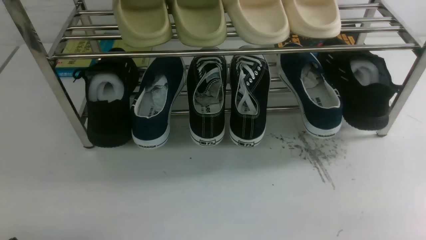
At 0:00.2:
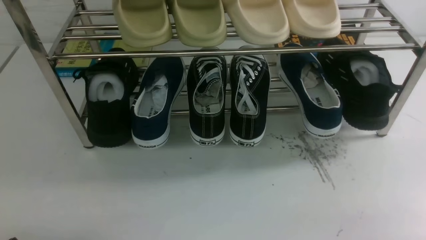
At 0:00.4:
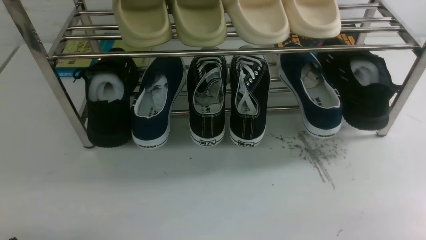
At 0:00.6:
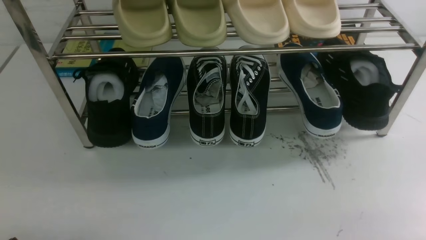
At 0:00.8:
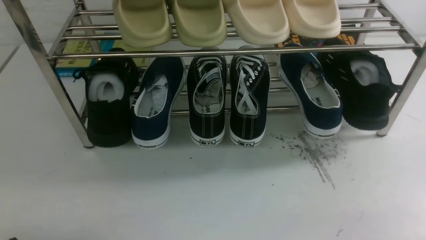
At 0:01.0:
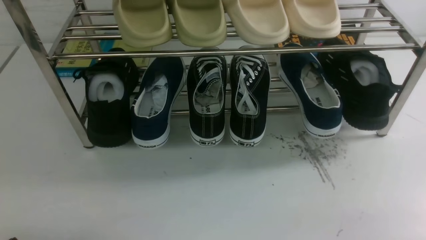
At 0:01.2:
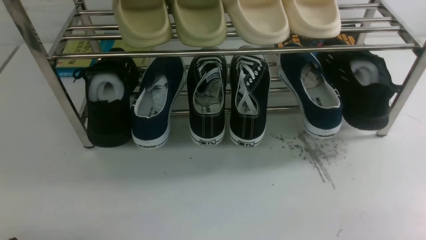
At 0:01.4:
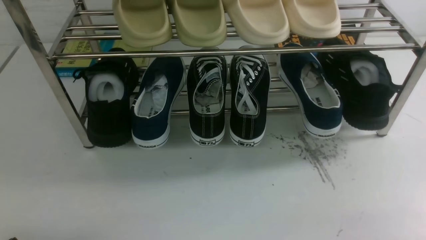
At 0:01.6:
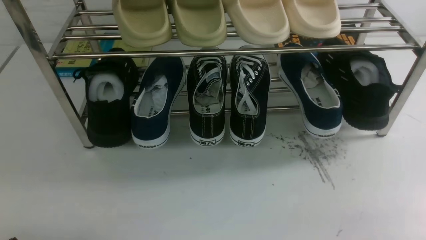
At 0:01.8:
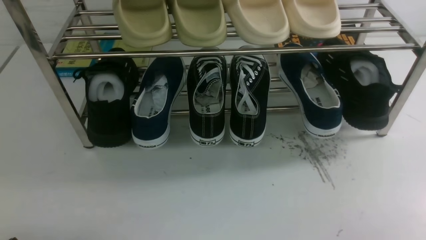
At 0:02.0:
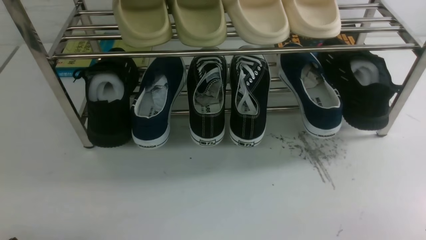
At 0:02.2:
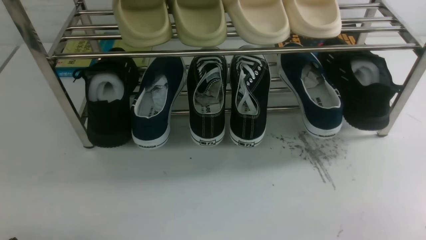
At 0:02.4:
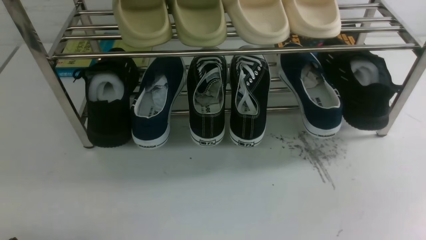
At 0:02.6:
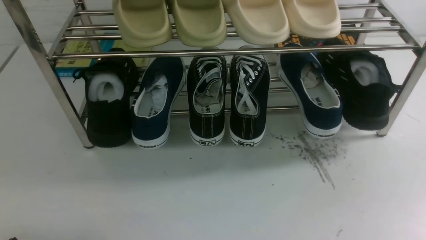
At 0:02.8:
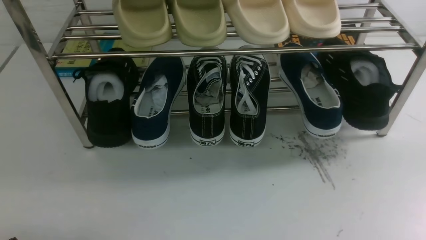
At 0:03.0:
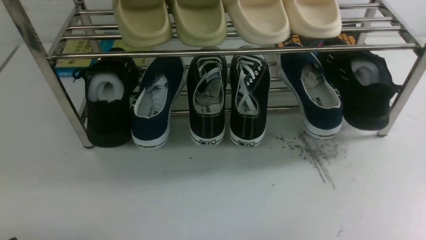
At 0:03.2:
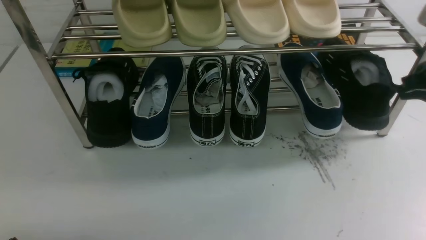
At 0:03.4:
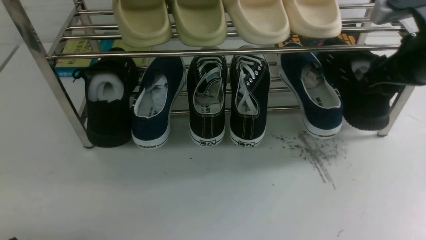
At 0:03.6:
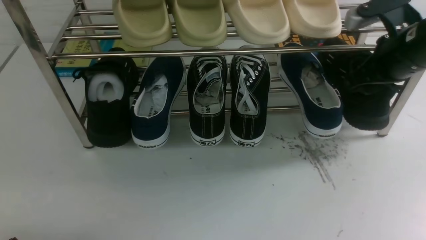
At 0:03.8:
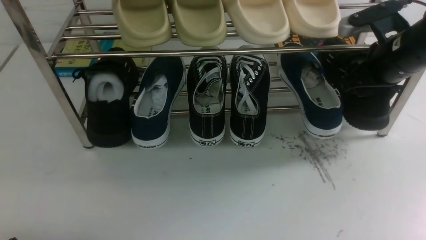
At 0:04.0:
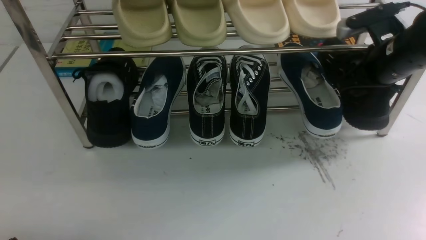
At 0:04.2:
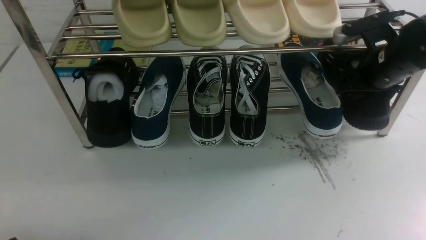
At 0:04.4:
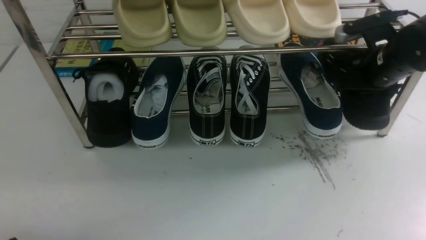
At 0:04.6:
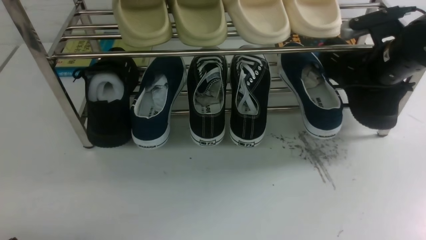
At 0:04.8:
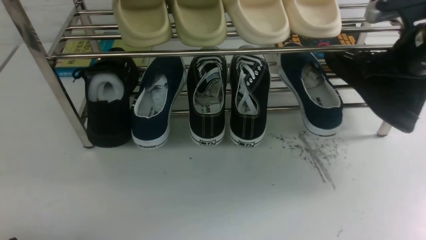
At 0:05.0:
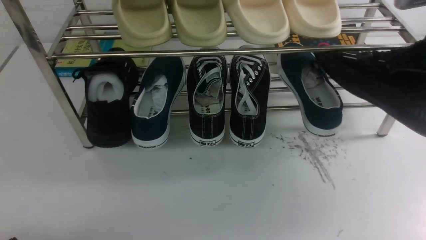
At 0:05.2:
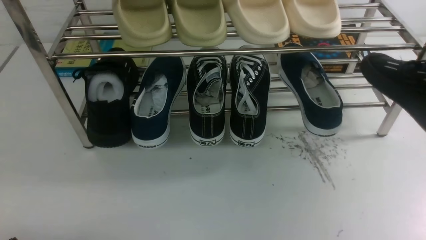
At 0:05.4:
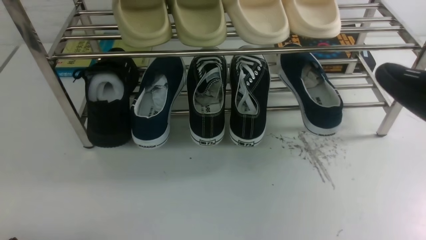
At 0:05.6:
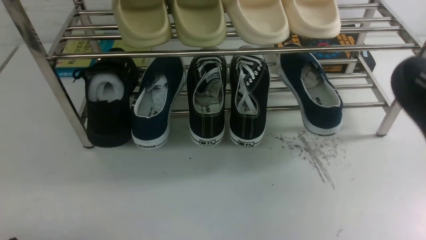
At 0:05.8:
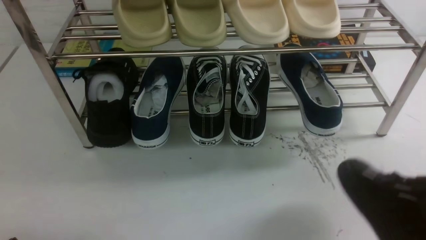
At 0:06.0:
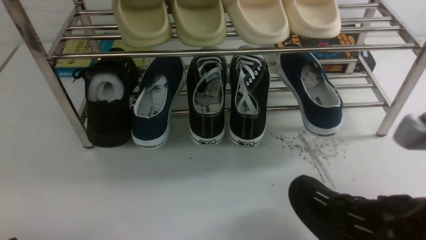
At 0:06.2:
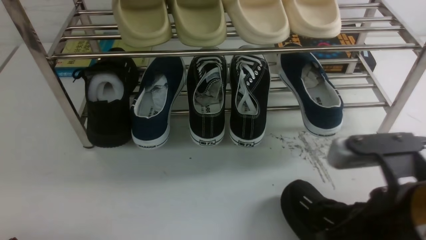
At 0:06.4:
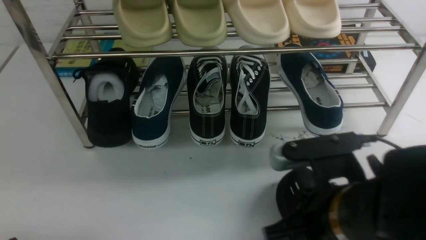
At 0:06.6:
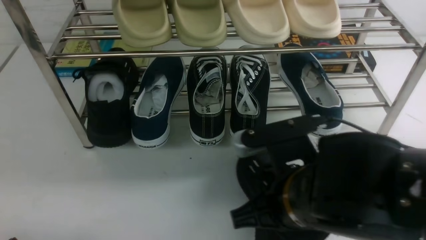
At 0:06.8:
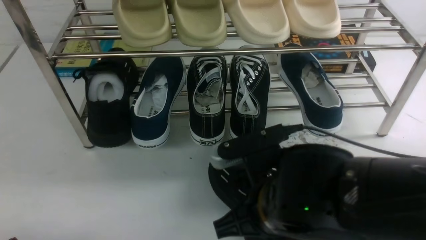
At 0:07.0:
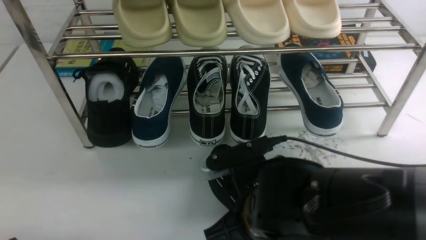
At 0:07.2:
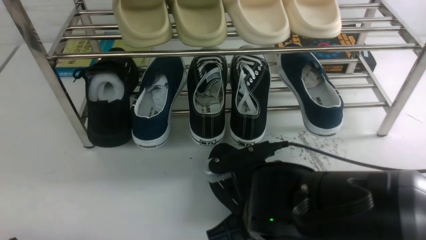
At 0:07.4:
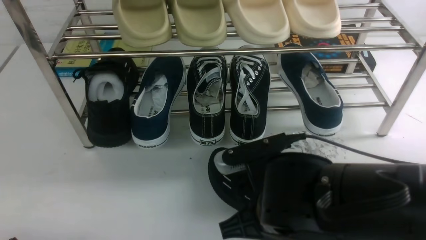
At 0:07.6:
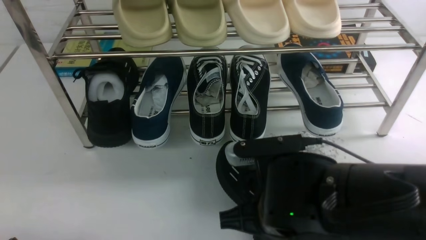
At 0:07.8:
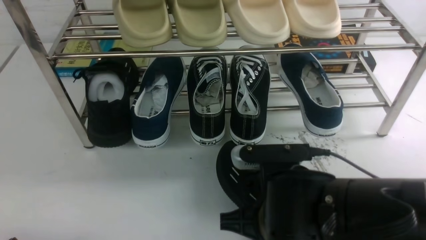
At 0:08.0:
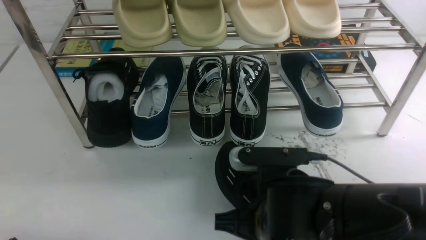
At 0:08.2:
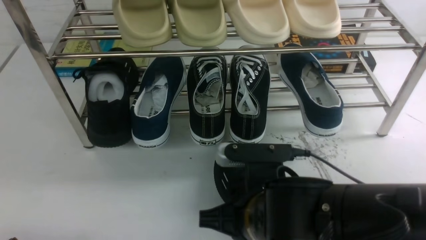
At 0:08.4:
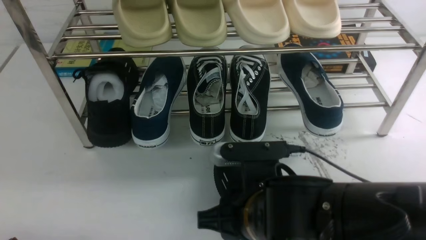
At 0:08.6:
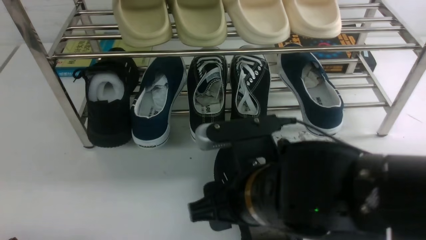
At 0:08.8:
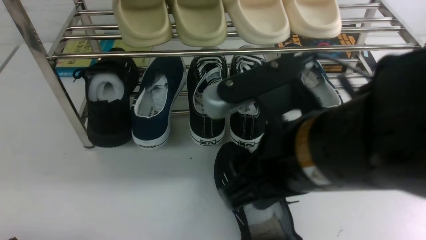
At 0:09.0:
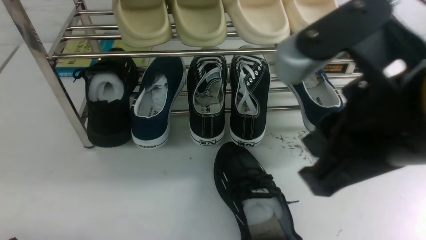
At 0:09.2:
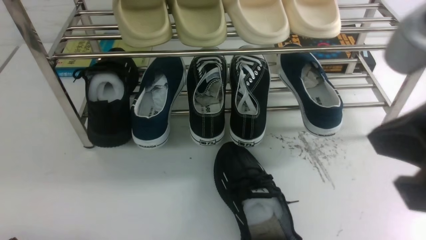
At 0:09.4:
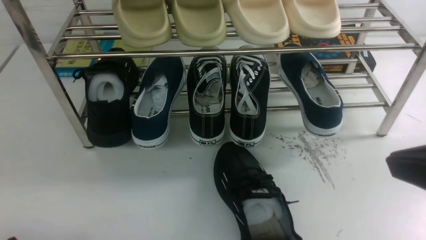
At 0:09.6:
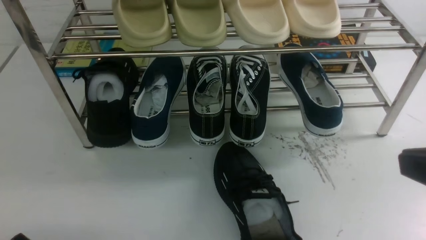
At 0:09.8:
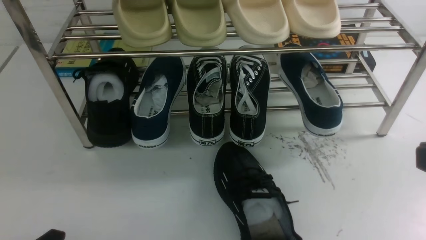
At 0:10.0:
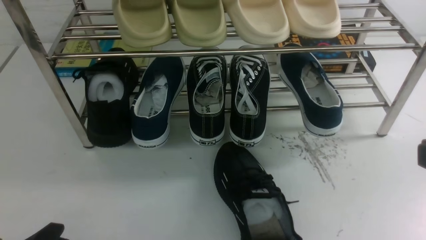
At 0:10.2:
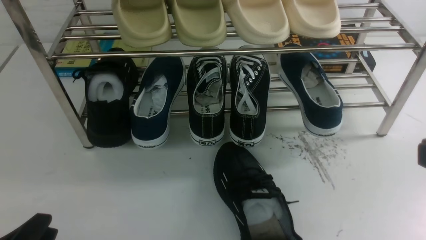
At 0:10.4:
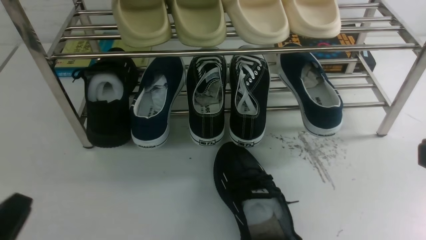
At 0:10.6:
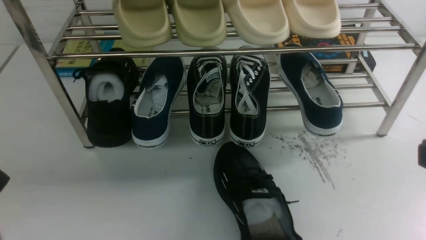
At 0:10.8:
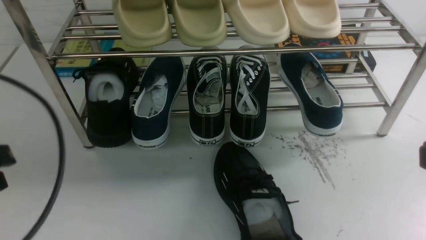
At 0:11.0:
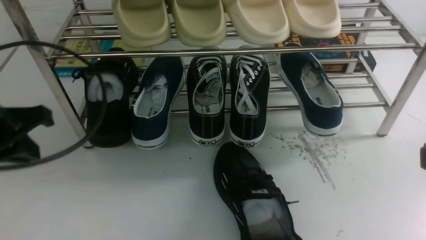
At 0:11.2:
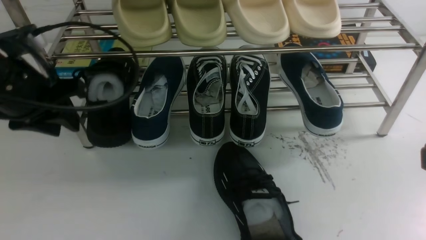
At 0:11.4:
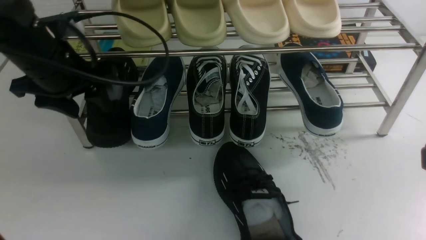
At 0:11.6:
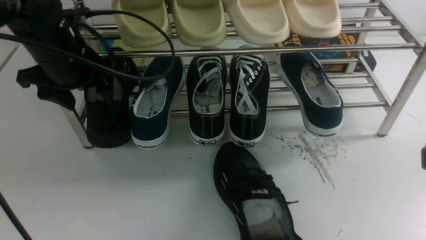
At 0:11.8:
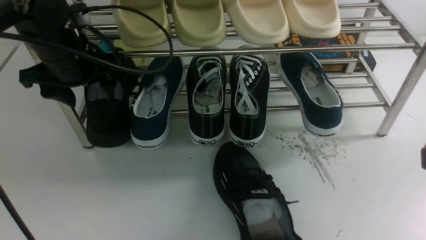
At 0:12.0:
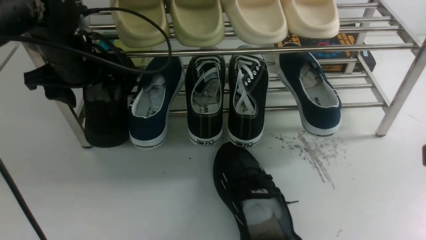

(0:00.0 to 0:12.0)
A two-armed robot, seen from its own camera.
Step, 0:00.0 - 0:04.8: use the right arm to clamp a shoe on the right side of the shoe rack.
Step, 0:05.0 - 0:09.0: use the right arm to take out the clamped shoe from the shoe rack and put it down.
0:03.0 - 0:04.4: The right gripper shifts approximately 15 cm forward and downward, and opens, then closes once more.
0:04.4 - 0:06.0: The right gripper goes roughly 25 cm backward, and closes.
0:06.0 - 0:07.6: The right gripper heads to the left and downward, covering roughly 20 cm.
0:07.6 - 0:09.0: The right gripper moves upward and to the right, roughly 20 cm, and opens and closes again.
0:09.0 - 0:10.4: The left gripper travels upward by some 10 cm. The right gripper shifts approximately 15 cm to the right and backward, and closes up.
0:10.4 - 0:12.0: The left gripper goes roughly 30 cm forward, and opens up.

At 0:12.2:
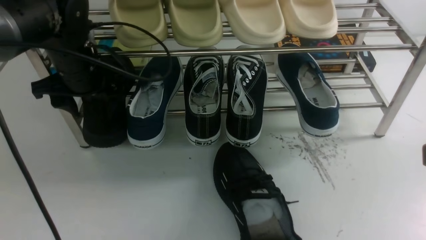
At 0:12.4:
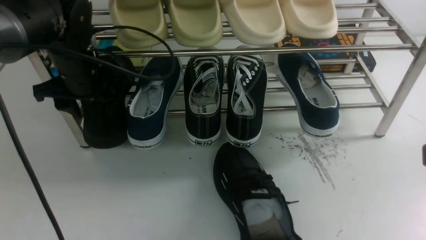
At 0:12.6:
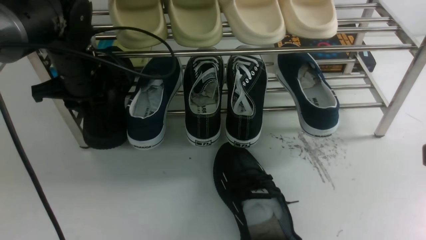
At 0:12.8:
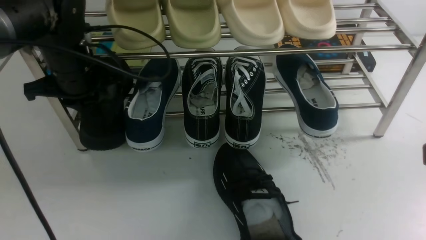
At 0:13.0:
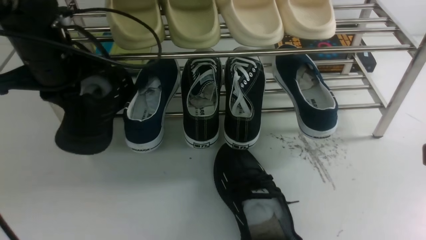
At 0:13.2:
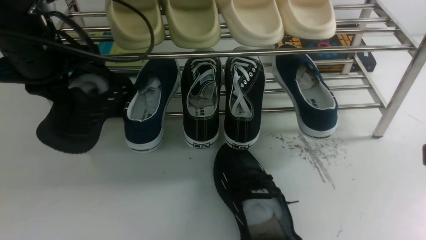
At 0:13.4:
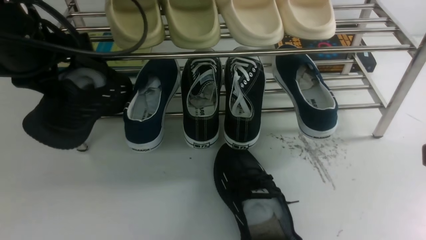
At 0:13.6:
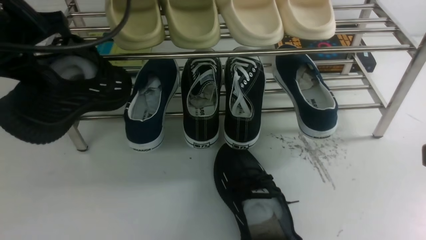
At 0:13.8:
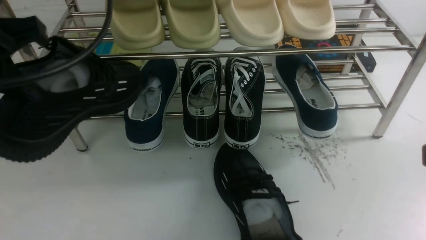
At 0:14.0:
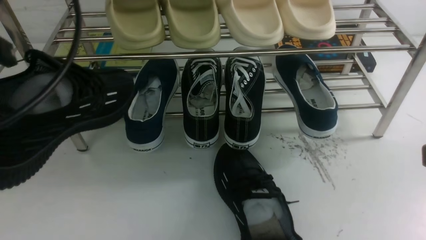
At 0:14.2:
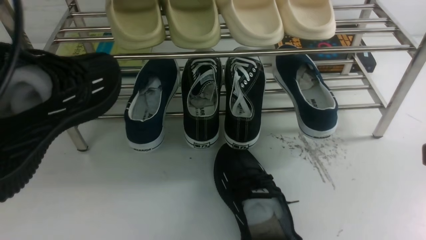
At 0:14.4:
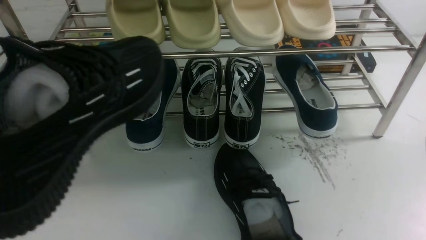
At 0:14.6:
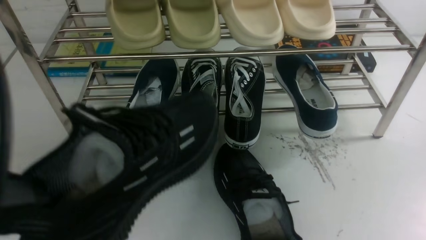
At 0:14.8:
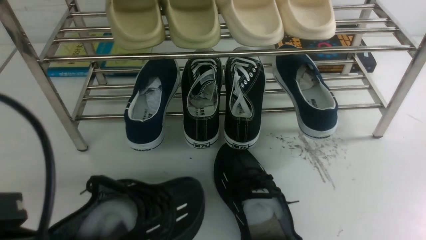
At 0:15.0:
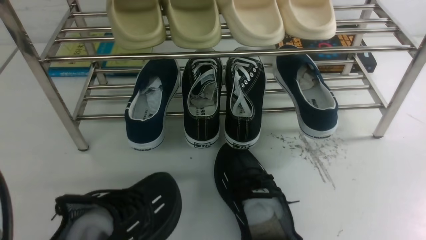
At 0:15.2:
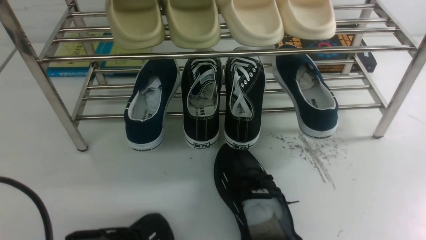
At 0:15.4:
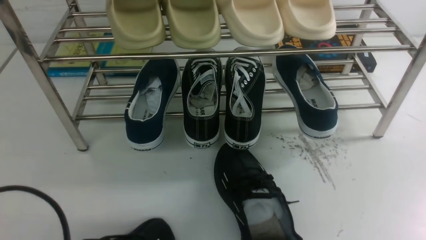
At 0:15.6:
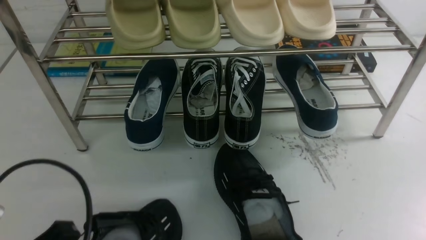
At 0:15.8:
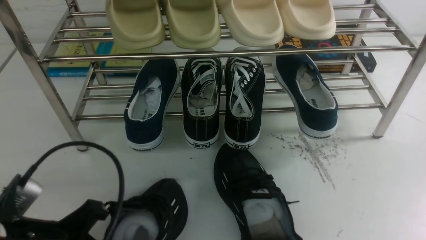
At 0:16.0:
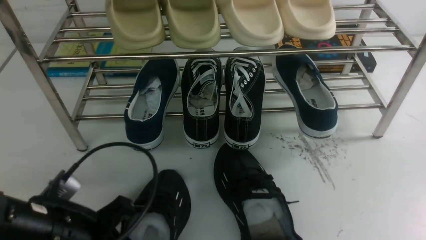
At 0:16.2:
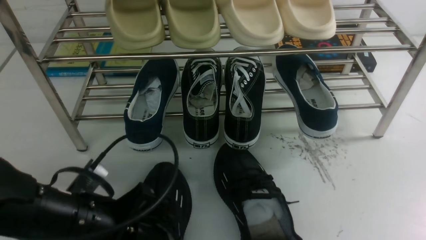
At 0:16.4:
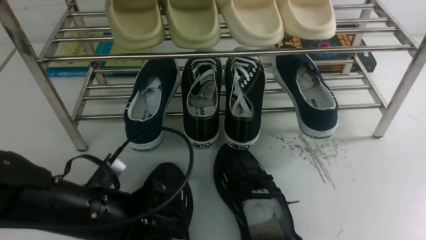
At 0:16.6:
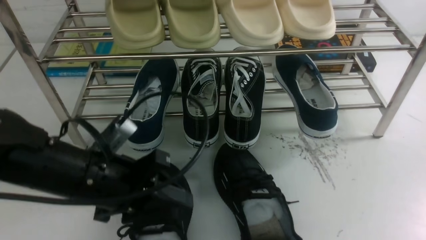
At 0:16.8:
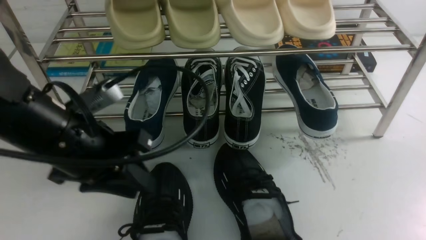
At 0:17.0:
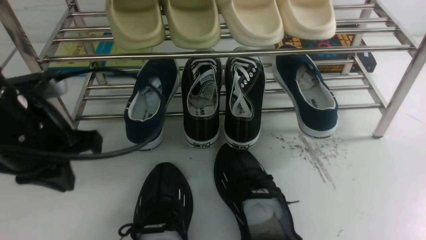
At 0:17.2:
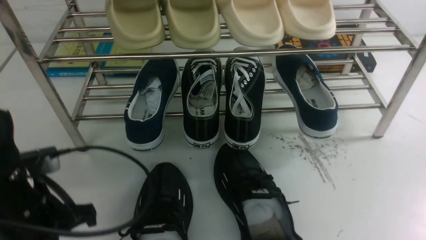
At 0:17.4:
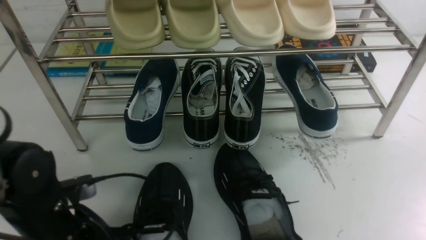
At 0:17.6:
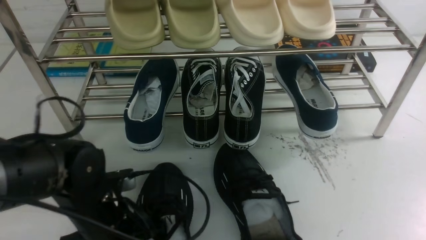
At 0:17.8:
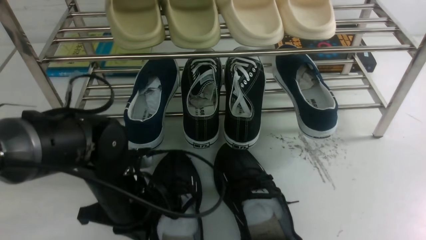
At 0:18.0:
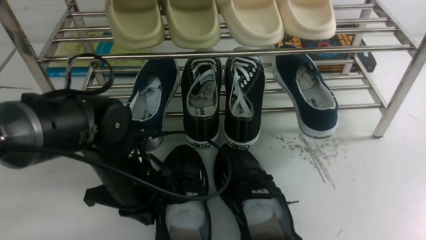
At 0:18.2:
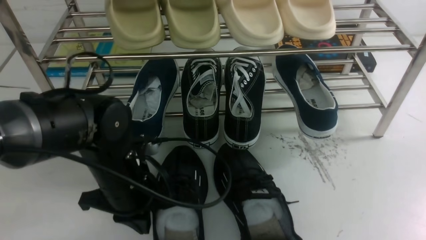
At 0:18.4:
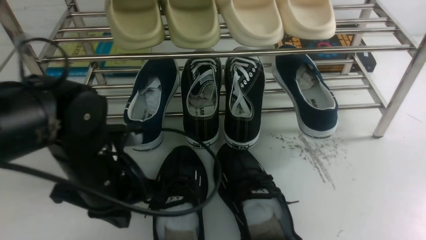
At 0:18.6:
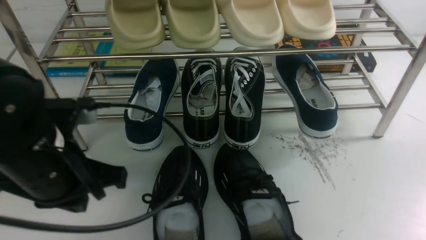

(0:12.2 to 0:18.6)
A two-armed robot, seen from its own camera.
Step, 0:13.4 - 0:16.8: Use your left arm to remove the clamped shoe from the shoe rack and put it down.
0:12.2 - 0:13.8: The left gripper moves backward and upward, about 20 cm, and closes.
0:13.8 - 0:15.4: The left gripper heads downward and backward, covering about 20 cm.
0:15.4 - 0:17.0: The left gripper goes about 15 cm forward, and opens and closes again.
0:17.0 - 0:18.6: The left gripper moves some 10 cm downward and comes back.
